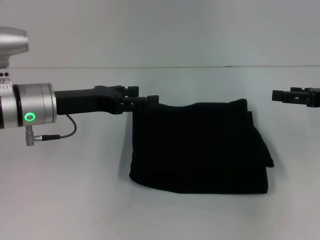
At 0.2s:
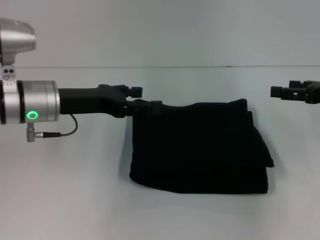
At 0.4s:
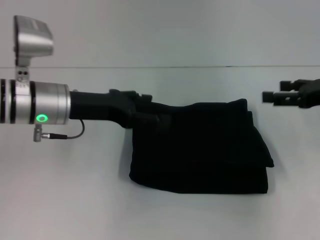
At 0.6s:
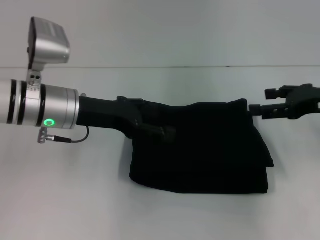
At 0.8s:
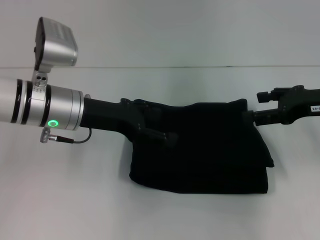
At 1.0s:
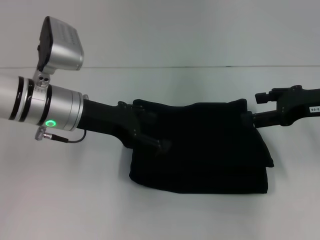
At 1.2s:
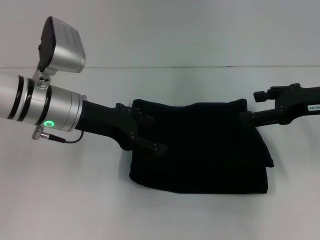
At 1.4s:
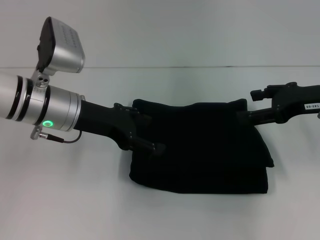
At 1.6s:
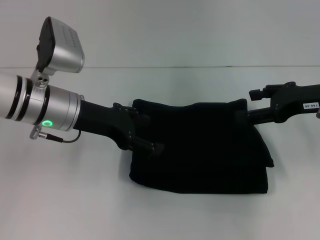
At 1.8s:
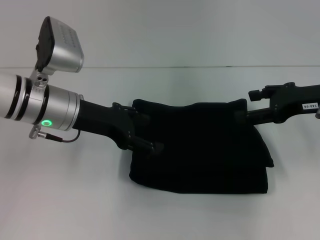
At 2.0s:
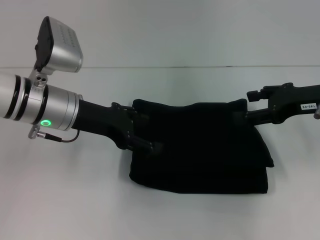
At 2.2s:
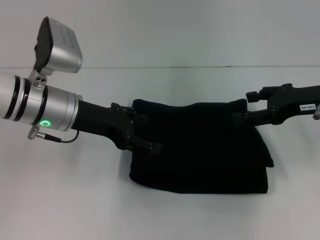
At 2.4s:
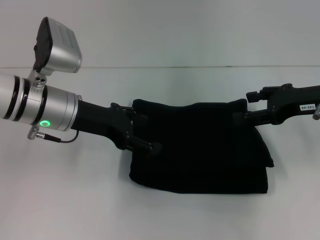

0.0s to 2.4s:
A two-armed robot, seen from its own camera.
0.0s to 1.2s: The right gripper goes approximately 5 cm to the left.
1.2s to 2.4s: Both grippers stay about where they are.

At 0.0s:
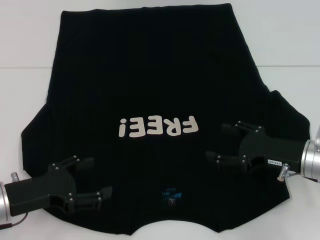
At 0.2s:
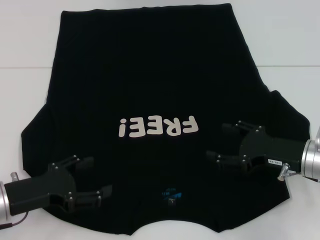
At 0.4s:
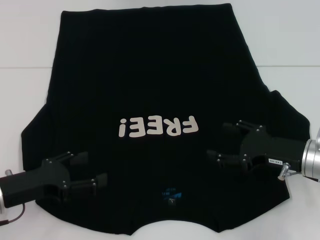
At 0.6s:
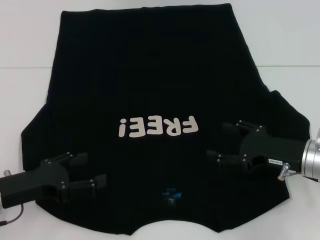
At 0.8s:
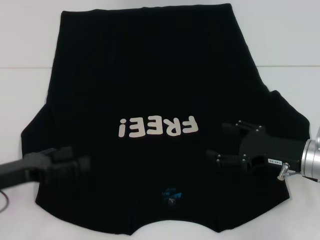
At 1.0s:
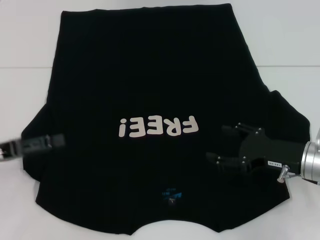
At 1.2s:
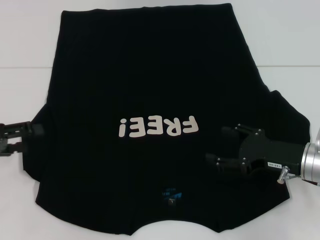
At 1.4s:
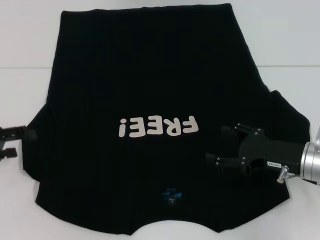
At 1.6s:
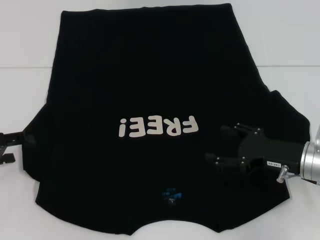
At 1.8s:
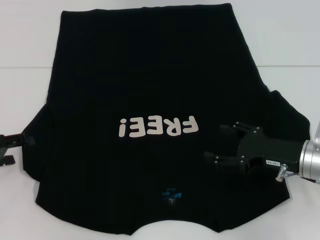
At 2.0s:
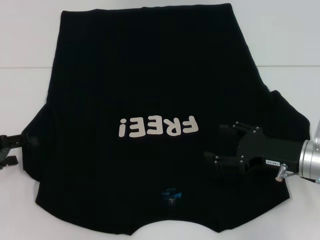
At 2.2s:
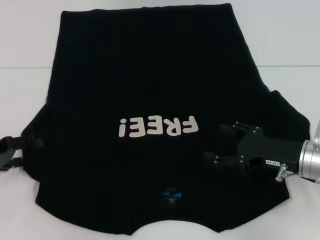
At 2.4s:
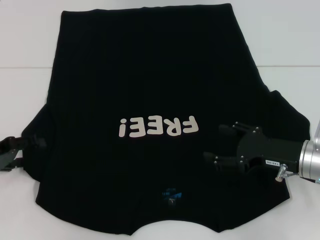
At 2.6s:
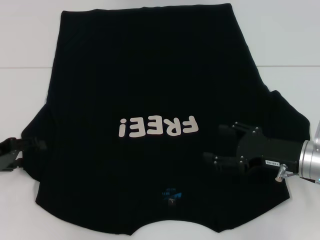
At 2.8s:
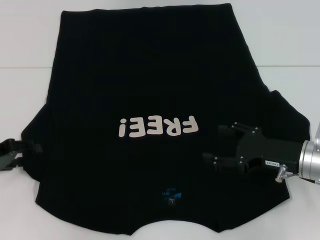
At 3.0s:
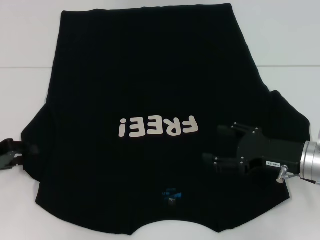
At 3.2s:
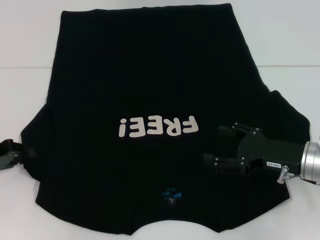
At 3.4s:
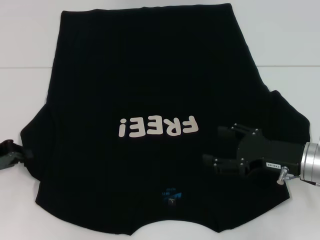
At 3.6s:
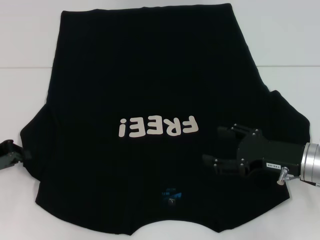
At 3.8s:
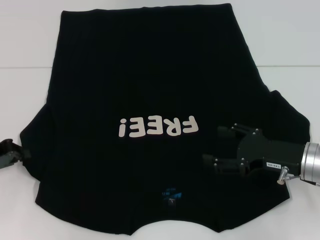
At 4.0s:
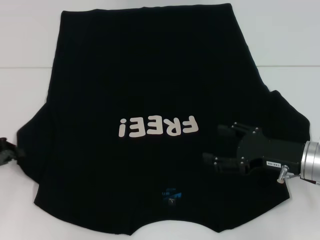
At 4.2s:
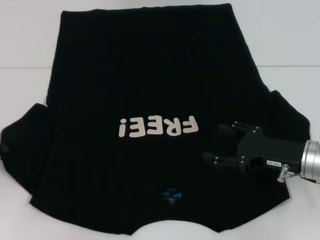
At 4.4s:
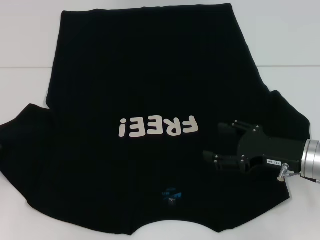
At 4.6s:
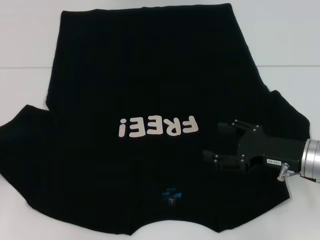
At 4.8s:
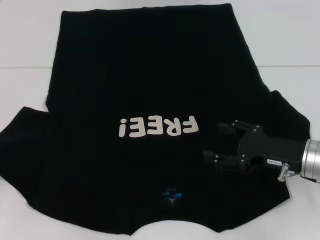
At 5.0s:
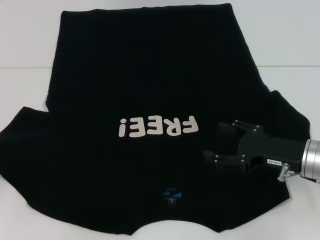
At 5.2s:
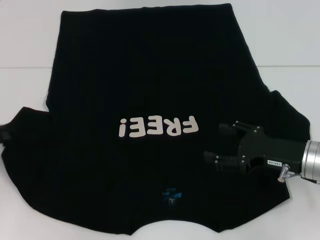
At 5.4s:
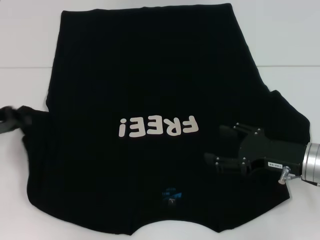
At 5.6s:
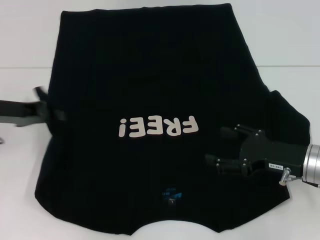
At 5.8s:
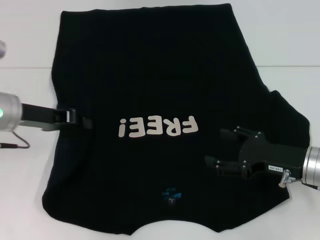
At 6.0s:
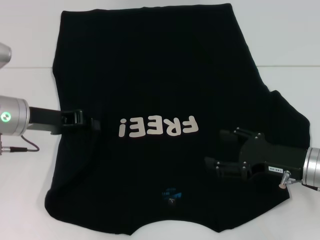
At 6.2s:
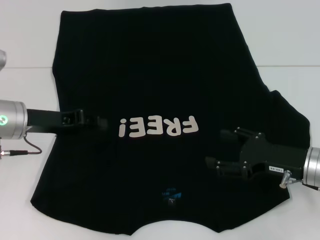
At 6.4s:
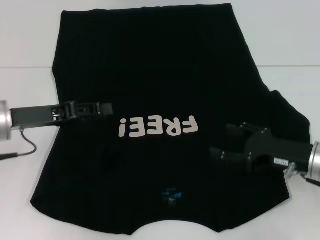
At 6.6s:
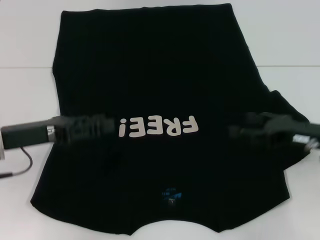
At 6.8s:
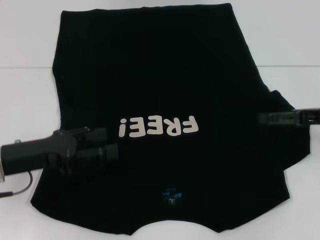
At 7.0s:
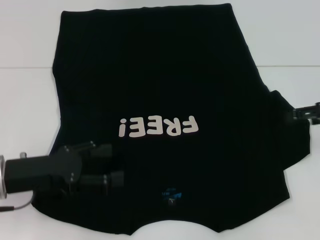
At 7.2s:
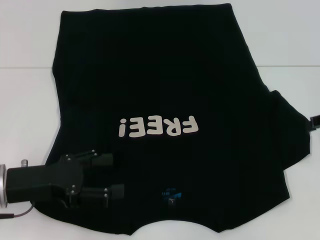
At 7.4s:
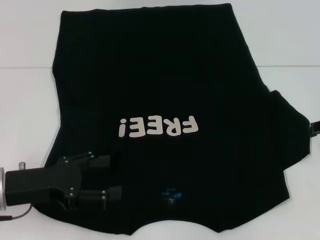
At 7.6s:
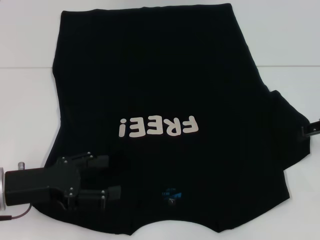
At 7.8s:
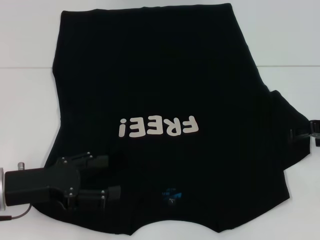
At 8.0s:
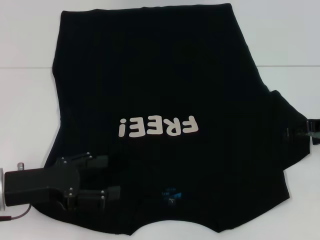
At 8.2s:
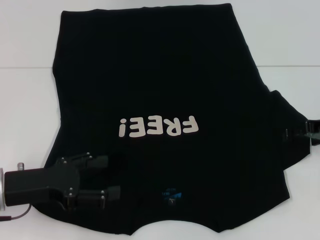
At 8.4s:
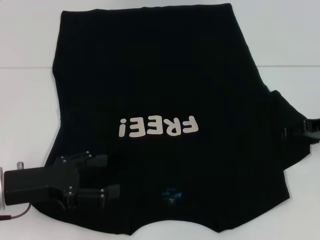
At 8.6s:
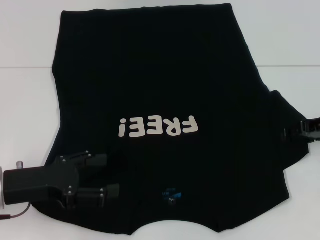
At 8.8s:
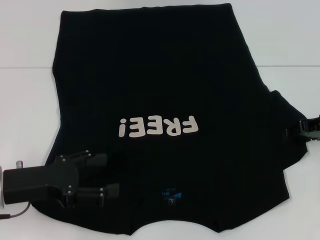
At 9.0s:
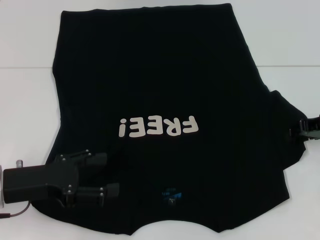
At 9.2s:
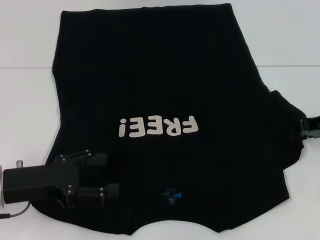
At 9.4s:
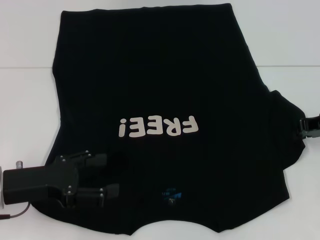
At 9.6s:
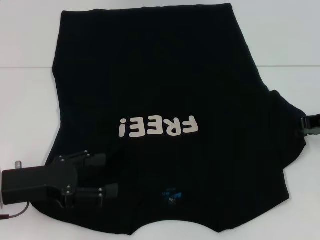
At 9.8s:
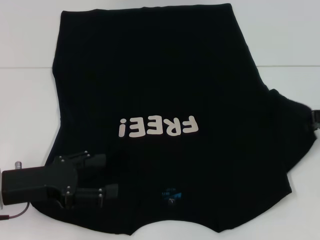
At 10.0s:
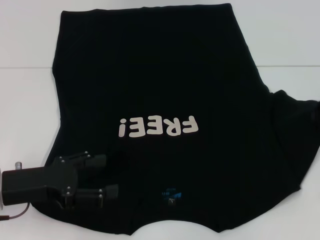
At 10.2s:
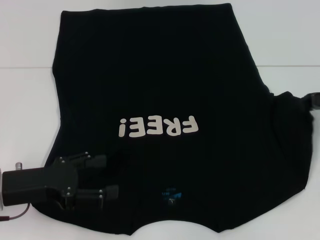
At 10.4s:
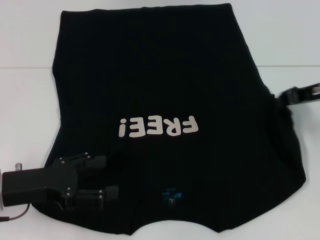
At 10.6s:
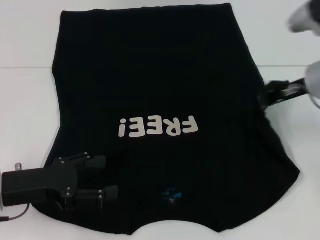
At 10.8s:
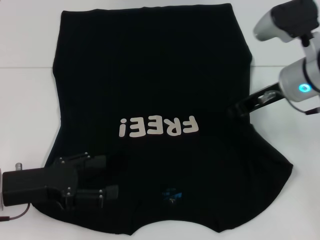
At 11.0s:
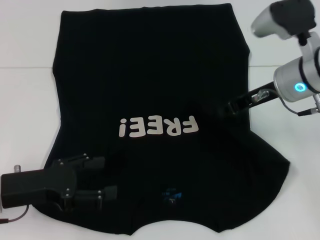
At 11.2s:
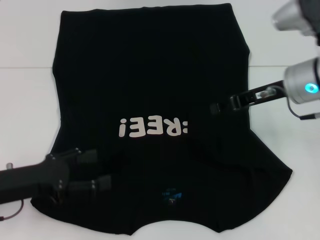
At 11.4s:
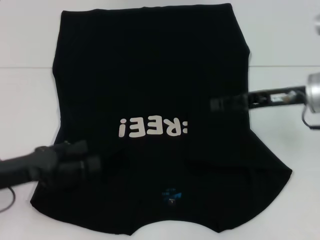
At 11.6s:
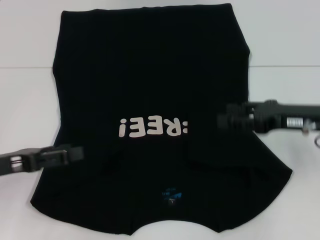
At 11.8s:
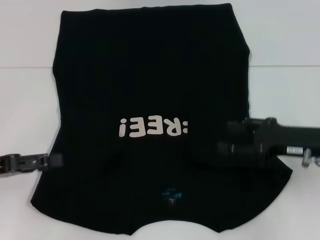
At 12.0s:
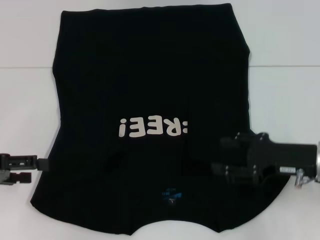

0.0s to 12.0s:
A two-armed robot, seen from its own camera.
Step, 0.0s to 6.4s: Fold the bottom left sleeve with your left hand.
Step, 6.6s to 11.2s: Fold the bottom right sleeve with your right hand.
0.0s to 1.6s: The left gripper travels to the left and forward by some 10 cm.
1.6s to 3.0s: The grippers stay close to where they were, moving slightly.
3.0s to 4.4s: The left gripper closes up.
4.4s to 6.0s: The left gripper heads to the right and forward, covering about 15 cm.
6.0s to 7.6s: The left gripper moves backward, about 10 cm, and opens its fingers. Meanwhile the right gripper travels to the right, upward and forward by about 15 cm.
9.0s to 10.4s: The right gripper shifts by some 5 cm, and closes.
10.4s to 12.0s: The right gripper goes roughly 10 cm backward and downward, and opens up, while the left gripper shifts roughly 10 cm to the left.

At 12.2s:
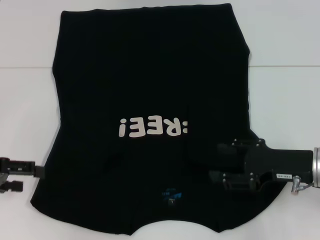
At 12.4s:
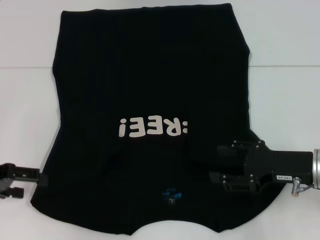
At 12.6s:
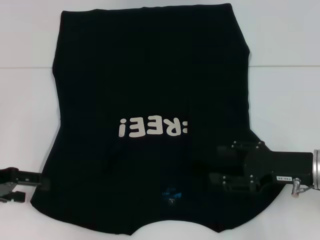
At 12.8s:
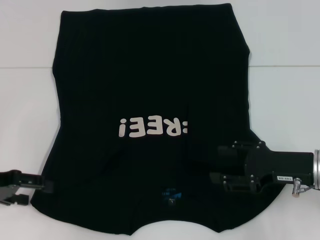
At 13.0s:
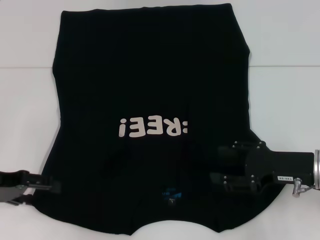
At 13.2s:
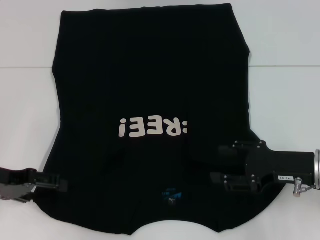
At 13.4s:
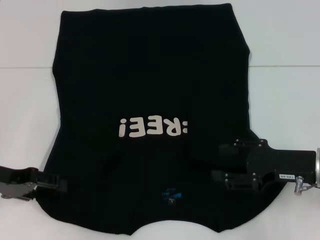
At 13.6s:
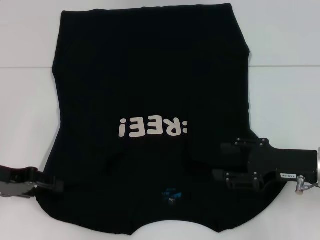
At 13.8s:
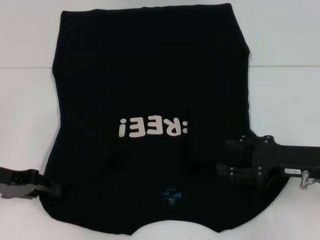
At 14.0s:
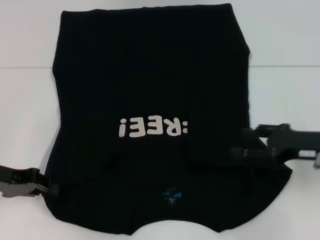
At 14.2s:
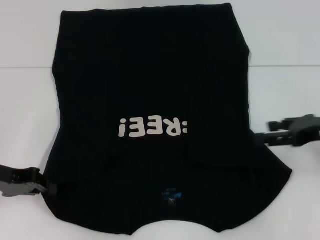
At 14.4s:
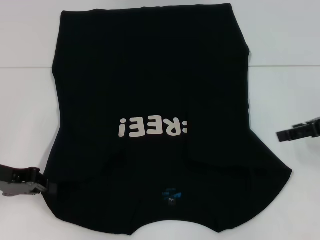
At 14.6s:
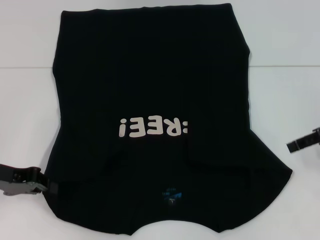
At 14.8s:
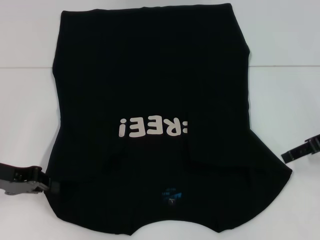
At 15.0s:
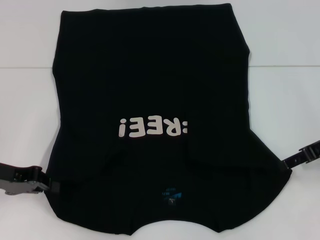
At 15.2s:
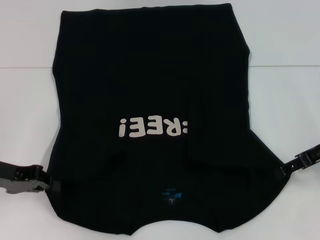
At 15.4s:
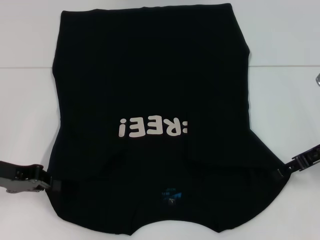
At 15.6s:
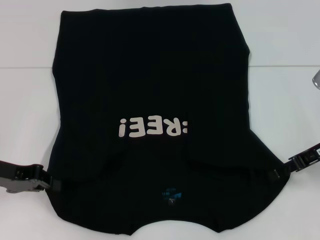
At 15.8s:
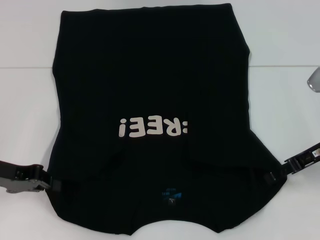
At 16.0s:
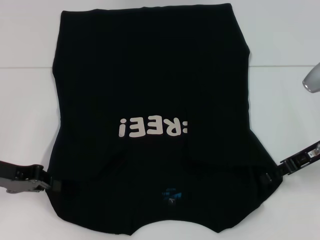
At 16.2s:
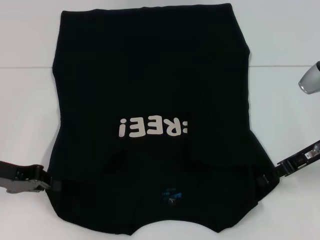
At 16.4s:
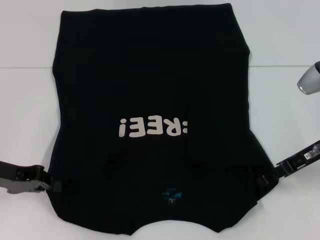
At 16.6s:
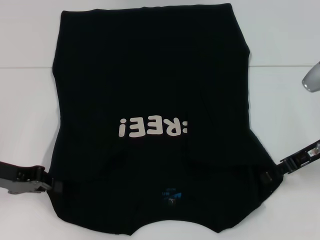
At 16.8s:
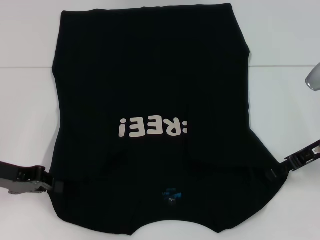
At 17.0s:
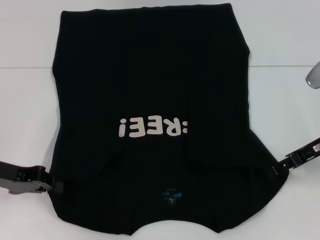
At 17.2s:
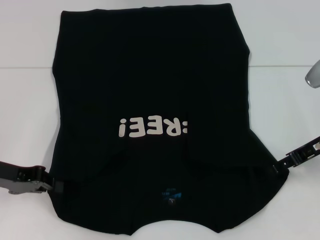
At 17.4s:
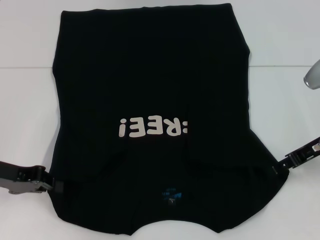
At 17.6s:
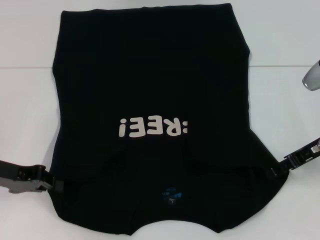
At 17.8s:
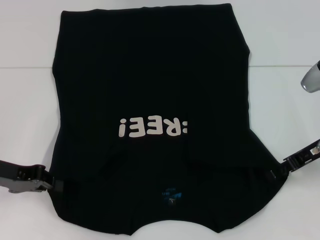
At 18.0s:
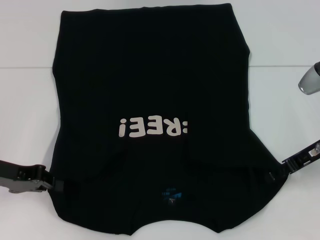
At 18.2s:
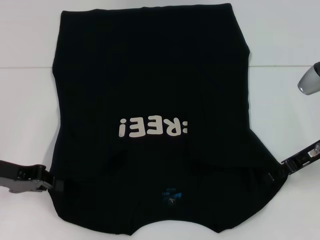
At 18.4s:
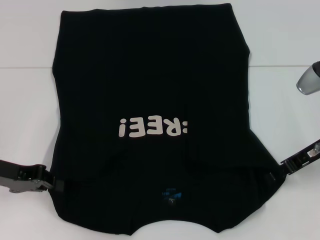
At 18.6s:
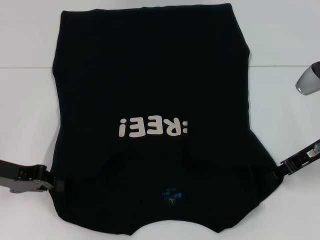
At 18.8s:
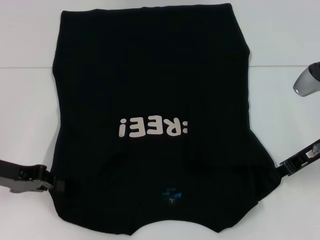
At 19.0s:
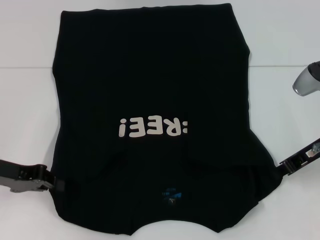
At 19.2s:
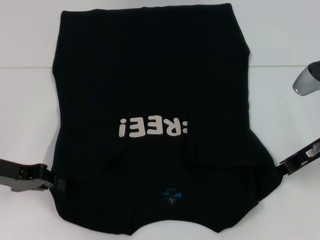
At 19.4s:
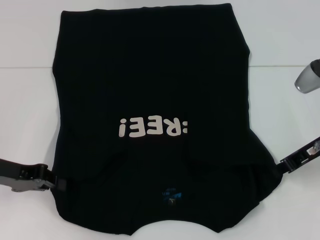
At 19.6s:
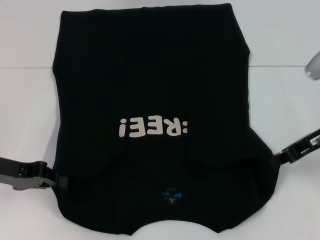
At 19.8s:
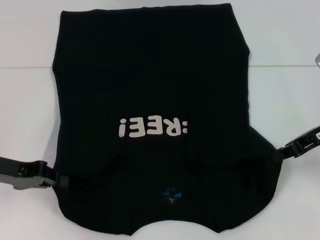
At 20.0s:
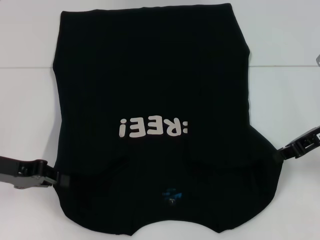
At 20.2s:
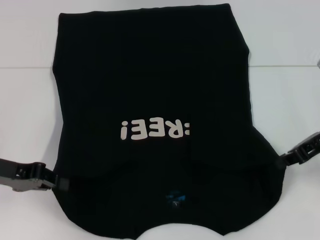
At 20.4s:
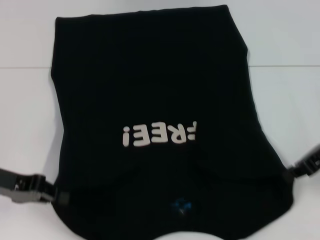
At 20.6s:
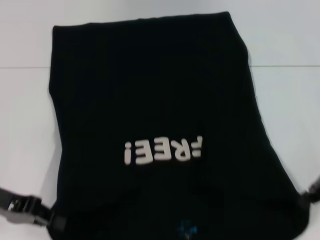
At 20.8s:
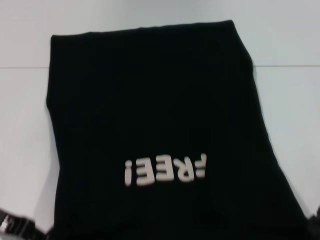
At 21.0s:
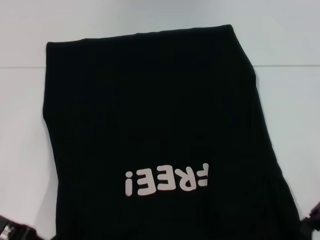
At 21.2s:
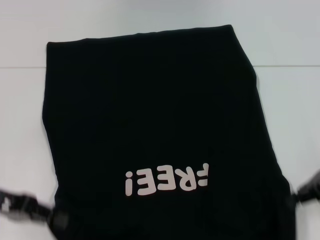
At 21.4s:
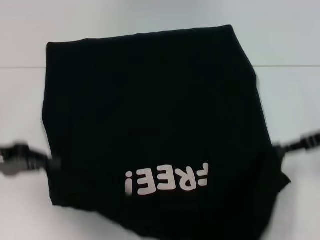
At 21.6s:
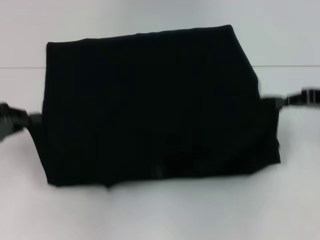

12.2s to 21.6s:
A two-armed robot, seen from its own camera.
Step, 12.2s to 14.2s: Grab the bottom left corner with your left hand.
Step, 14.4s to 19.2s: Grab the bottom right corner with your right hand.
12.2s to 13.8s: The left gripper closes up.
13.8s to 15.4s: The right gripper is displaced forward by about 5 cm, while the left gripper closes its fingers.
15.4s to 17.0s: The grippers move only a little.
17.0s to 18.4s: Neither gripper changes place.
18.4s to 20.0s: The right gripper closes up.
20.0s to 21.6s: The left gripper changes place by some 5 cm.
